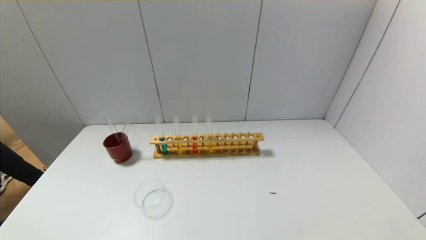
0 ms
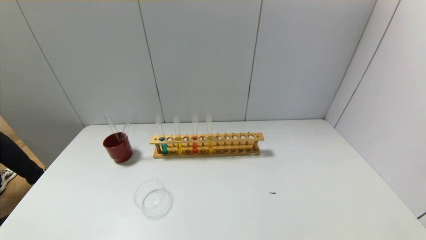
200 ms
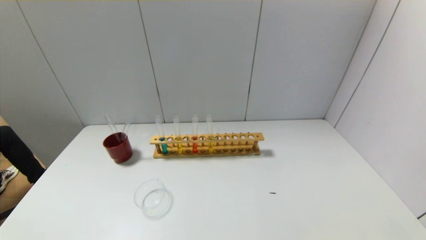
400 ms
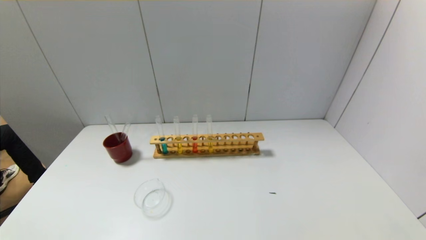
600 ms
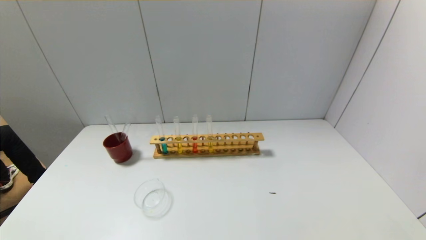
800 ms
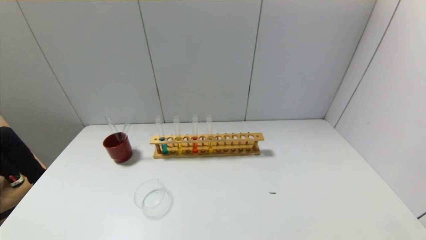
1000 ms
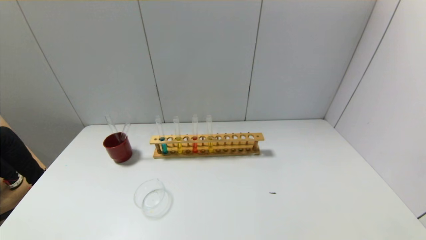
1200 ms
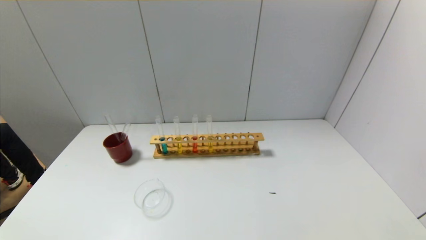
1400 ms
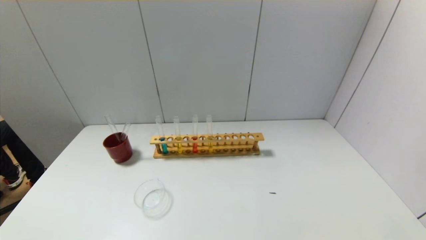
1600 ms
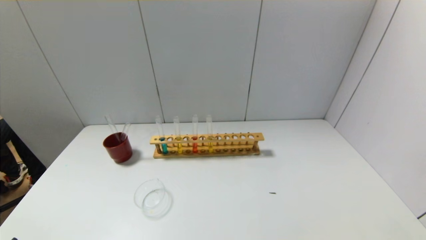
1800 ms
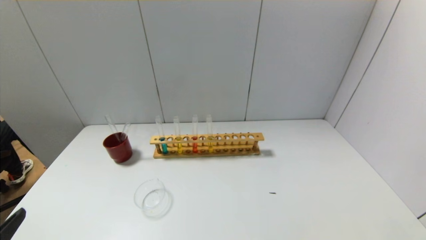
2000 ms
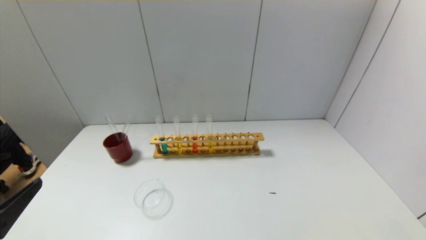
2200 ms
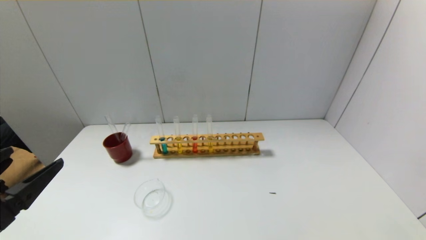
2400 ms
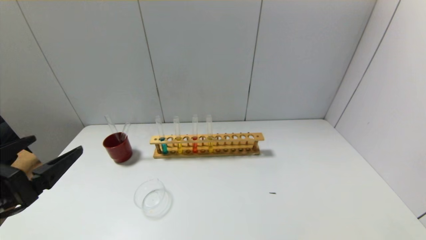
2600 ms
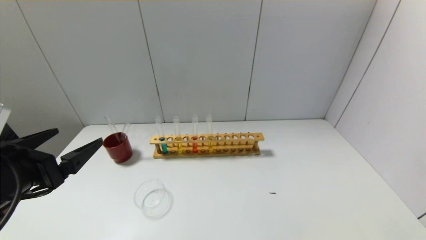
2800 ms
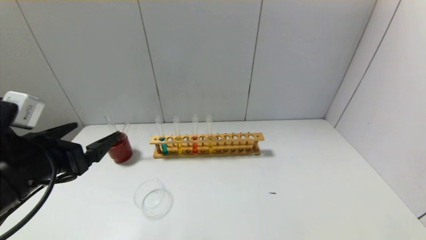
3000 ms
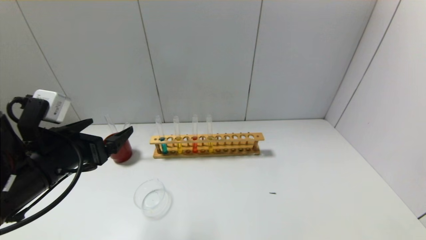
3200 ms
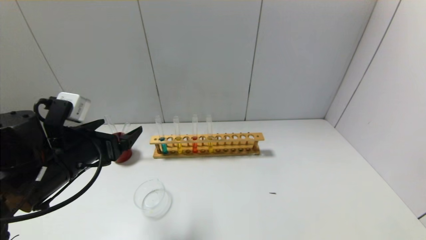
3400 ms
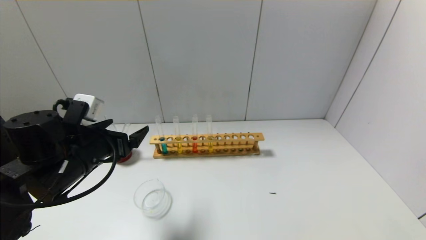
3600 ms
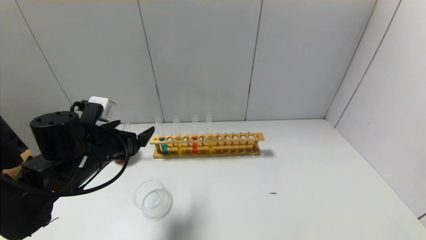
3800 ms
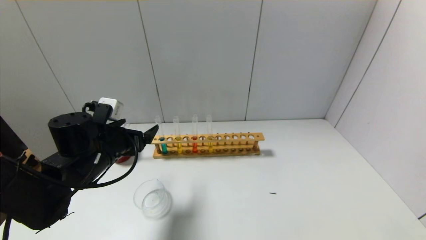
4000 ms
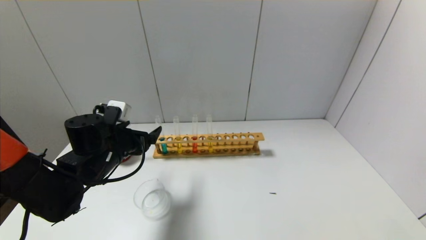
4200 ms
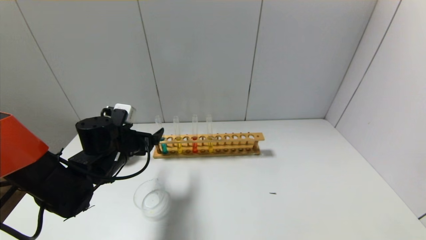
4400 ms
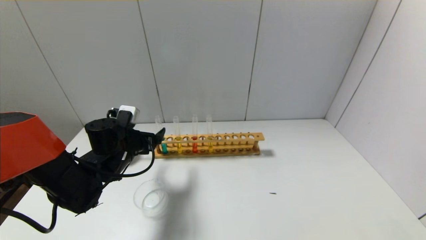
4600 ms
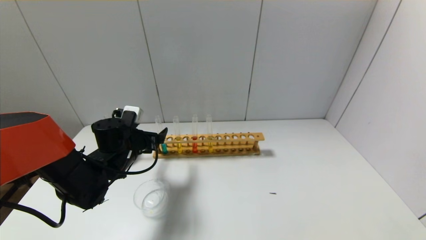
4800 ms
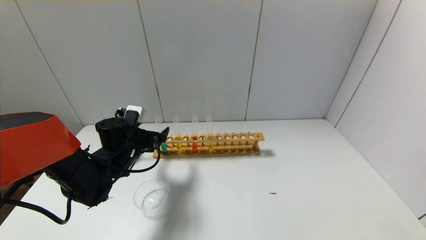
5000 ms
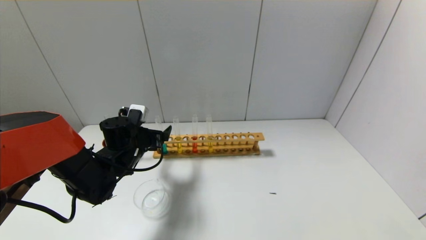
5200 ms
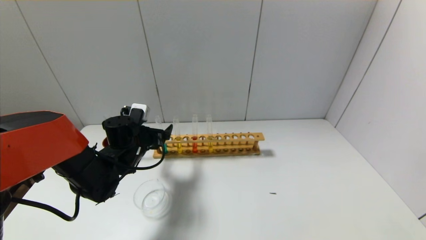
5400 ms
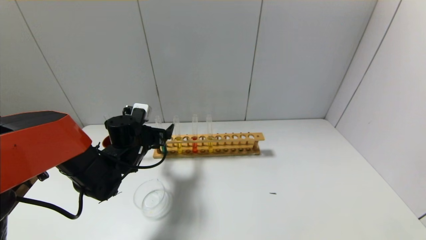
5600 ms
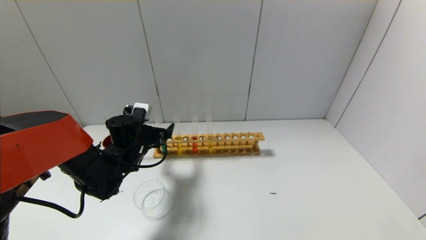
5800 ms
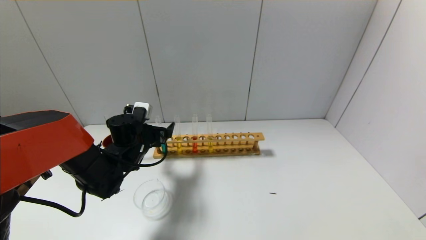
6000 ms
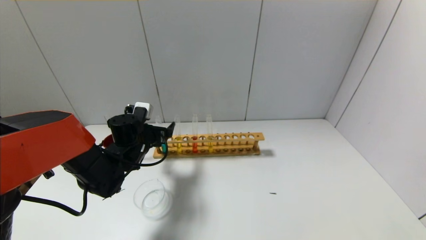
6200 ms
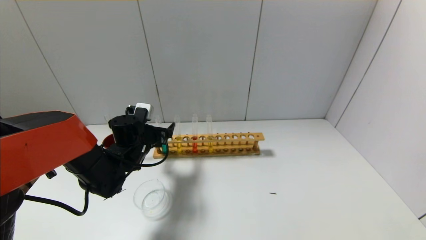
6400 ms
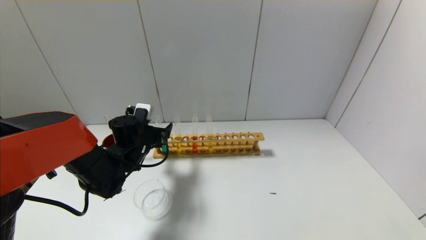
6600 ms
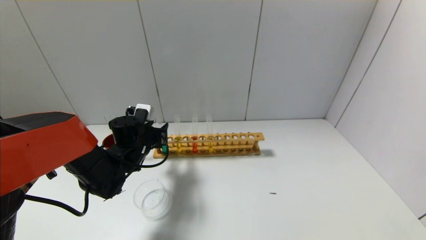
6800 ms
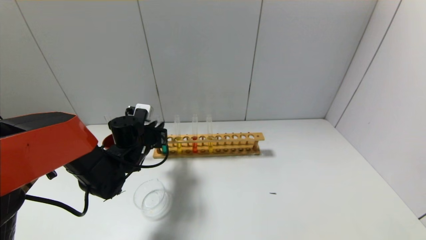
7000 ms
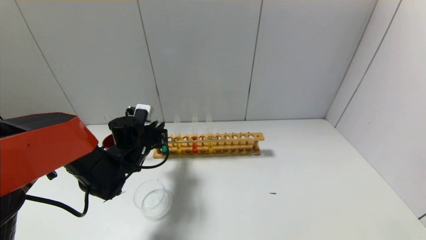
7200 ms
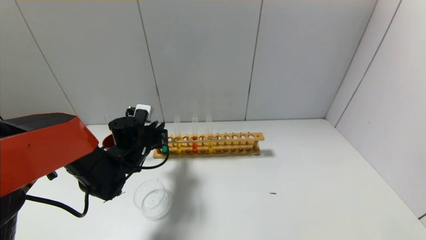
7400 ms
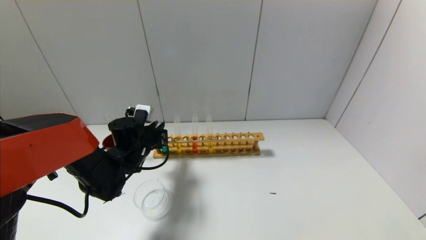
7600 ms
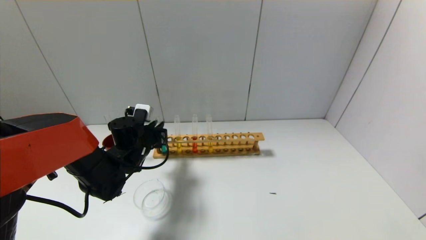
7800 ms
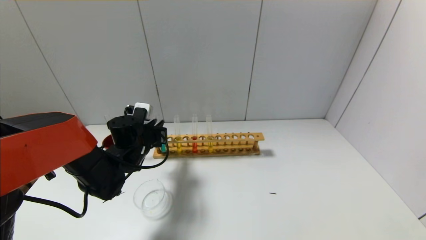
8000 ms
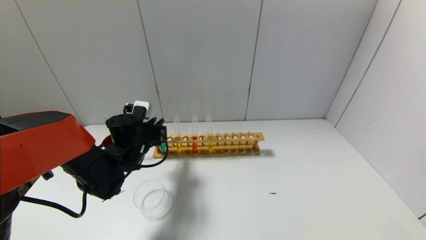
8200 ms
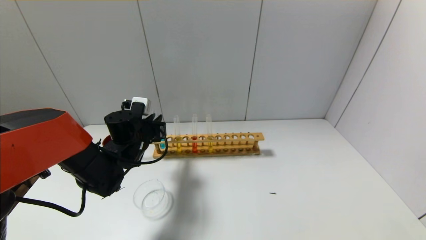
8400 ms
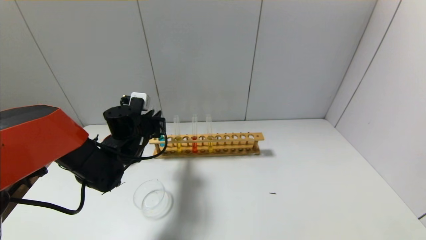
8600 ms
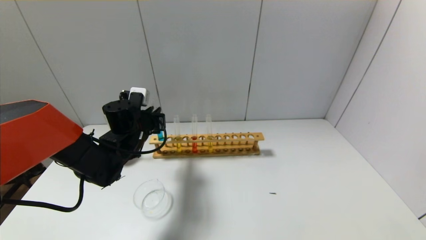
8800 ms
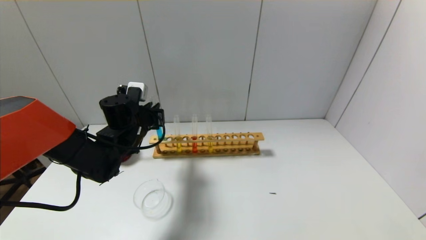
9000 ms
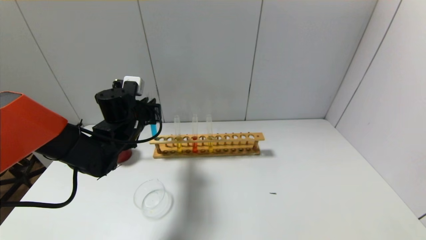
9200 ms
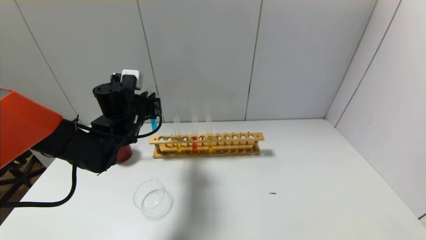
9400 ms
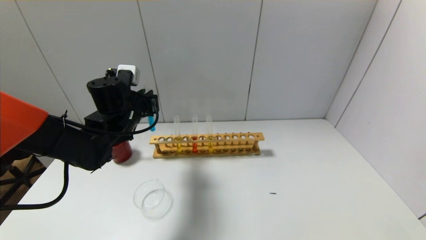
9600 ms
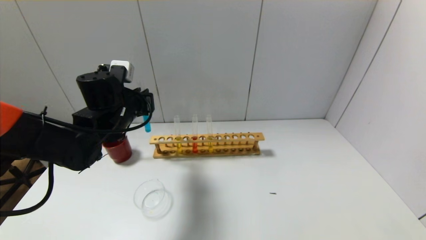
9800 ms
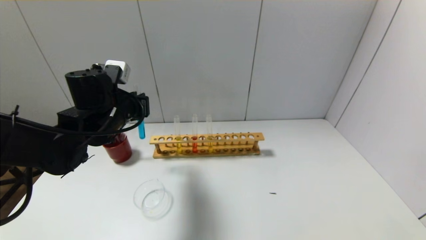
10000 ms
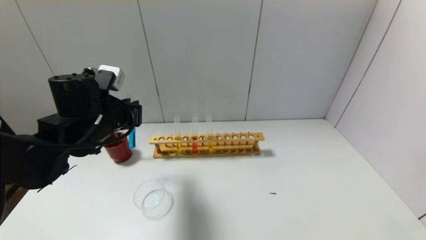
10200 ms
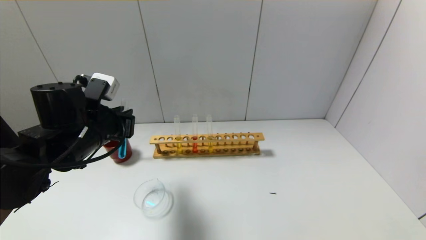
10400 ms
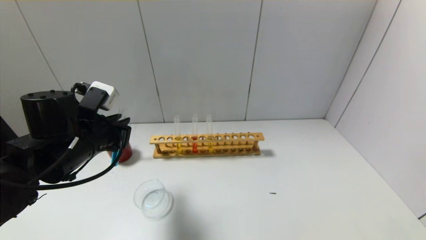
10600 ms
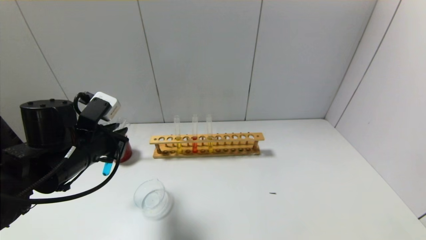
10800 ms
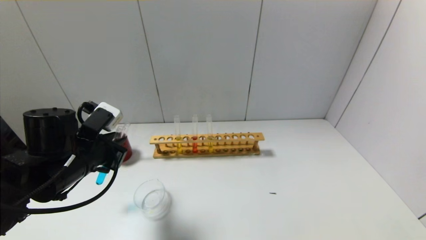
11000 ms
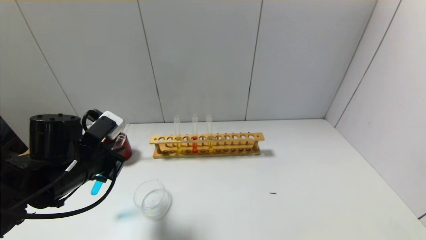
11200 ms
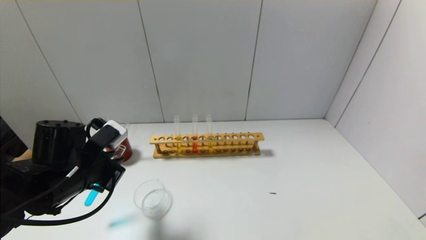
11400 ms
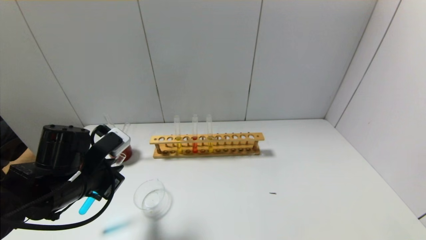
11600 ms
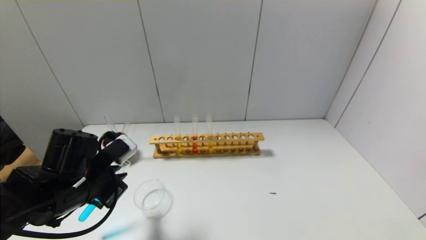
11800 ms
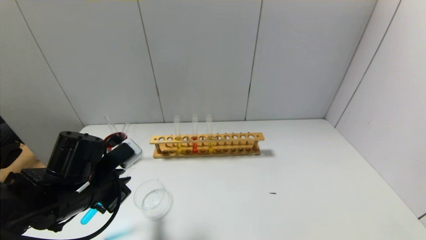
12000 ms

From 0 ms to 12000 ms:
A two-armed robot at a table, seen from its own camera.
Step, from 0 ms to 7000 ms: Grasp the blue reagent with the left gripper.
From 0 ms to 1600 ms: The left gripper moves upward, about 5 cm.
From 1600 ms to 3000 ms: The left gripper travels forward by some 20 cm.
From 3000 ms to 4400 ms: The left gripper travels forward and downward by approximately 15 cm.
From 4400 ms to 6000 ms: The left gripper moves some 5 cm.
From 6000 ms to 7600 ms: The left gripper closes up.
From 7600 ms to 9000 ms: The left gripper shifts roughly 5 cm upward.
From 9000 ms to 10400 ms: The left gripper travels backward by about 10 cm.
From 10400 ms to 12000 ms: The left gripper heads downward and backward, covering some 10 cm.

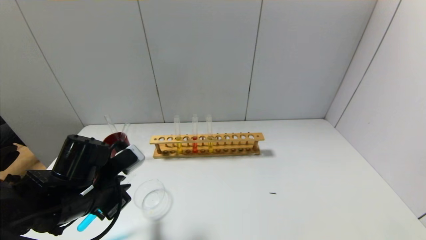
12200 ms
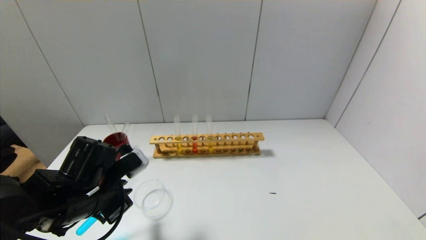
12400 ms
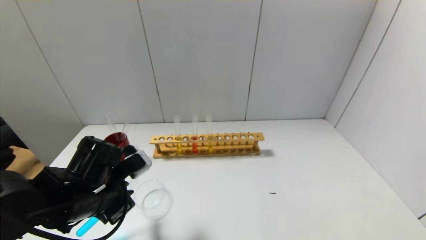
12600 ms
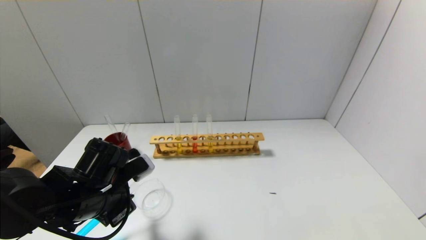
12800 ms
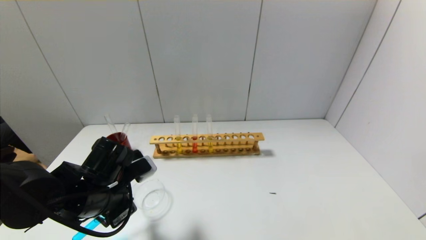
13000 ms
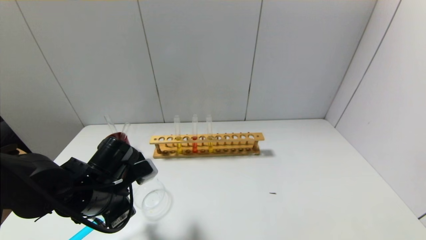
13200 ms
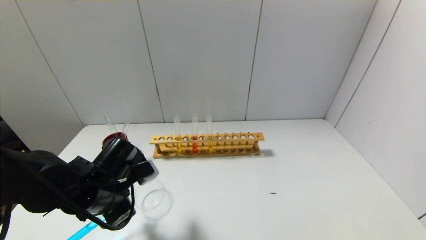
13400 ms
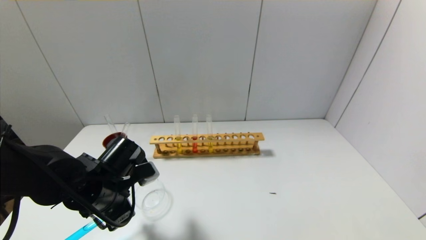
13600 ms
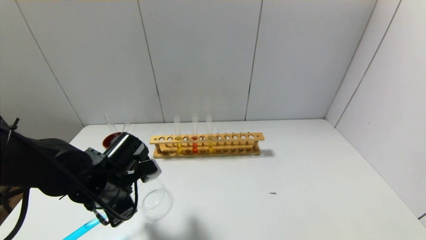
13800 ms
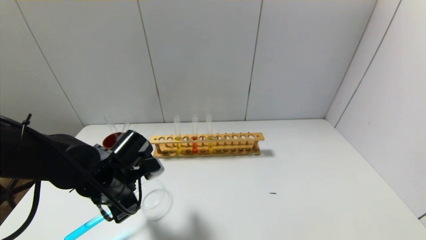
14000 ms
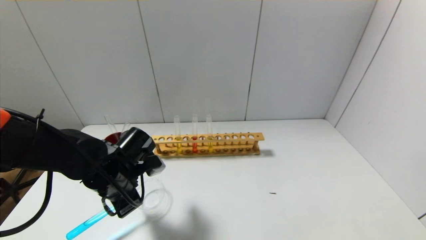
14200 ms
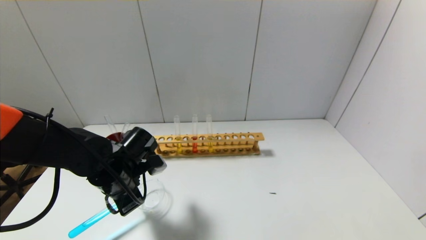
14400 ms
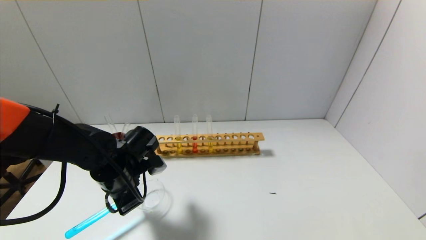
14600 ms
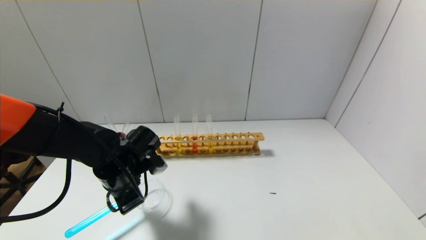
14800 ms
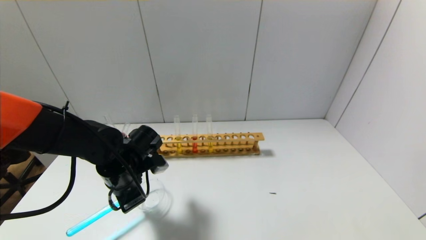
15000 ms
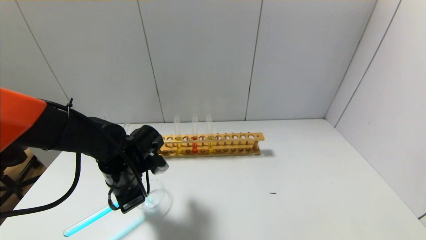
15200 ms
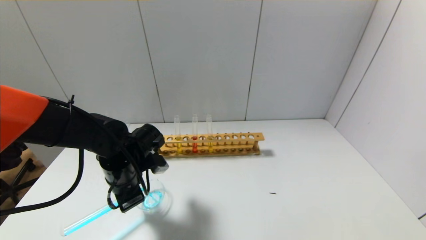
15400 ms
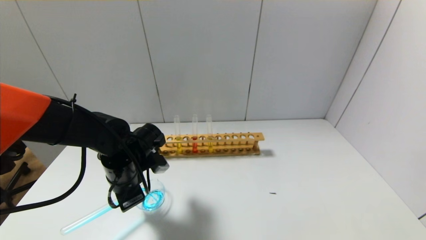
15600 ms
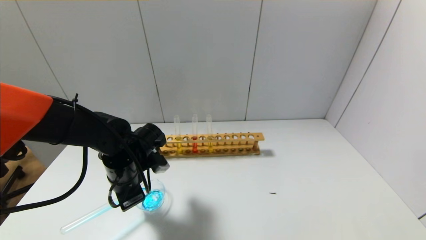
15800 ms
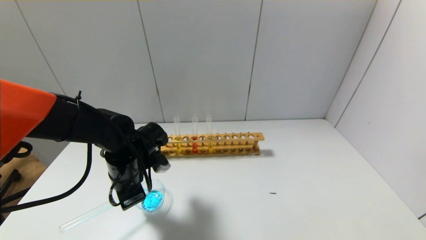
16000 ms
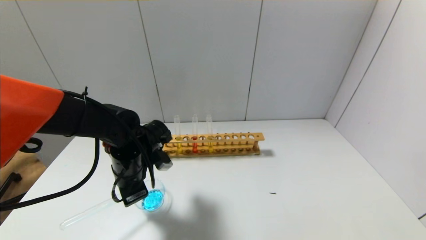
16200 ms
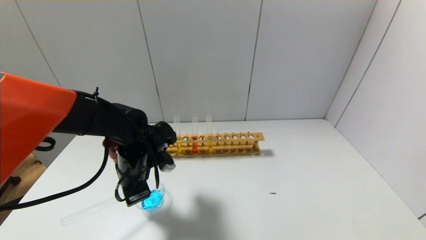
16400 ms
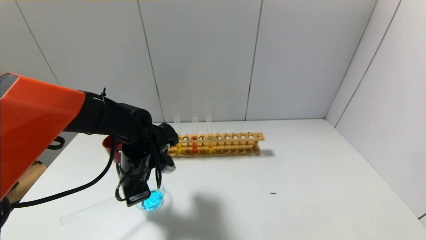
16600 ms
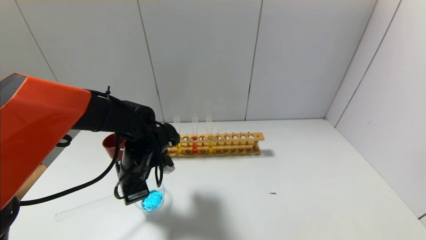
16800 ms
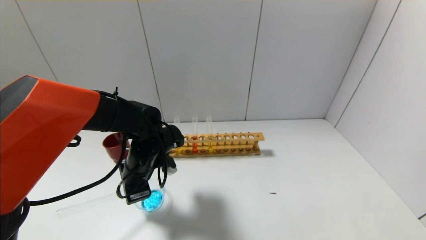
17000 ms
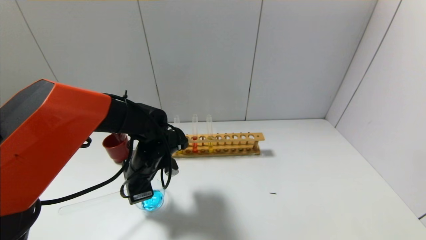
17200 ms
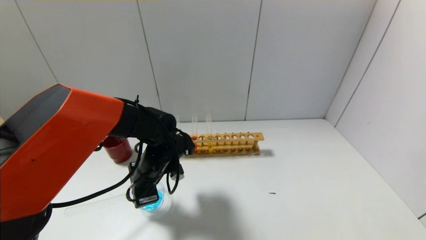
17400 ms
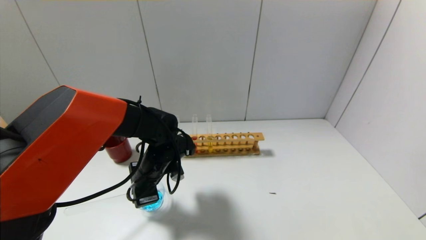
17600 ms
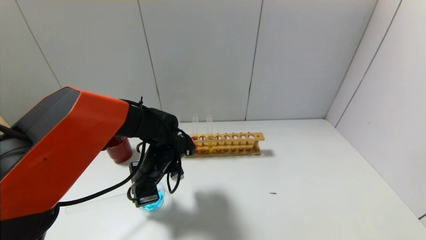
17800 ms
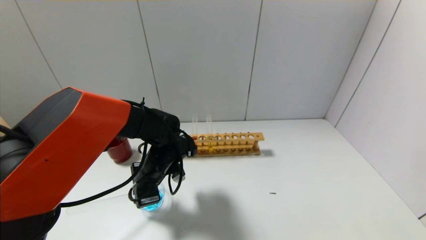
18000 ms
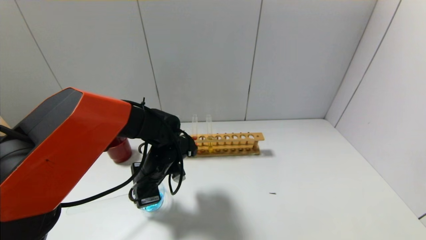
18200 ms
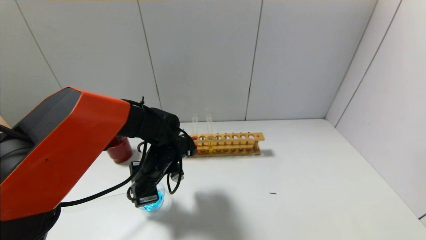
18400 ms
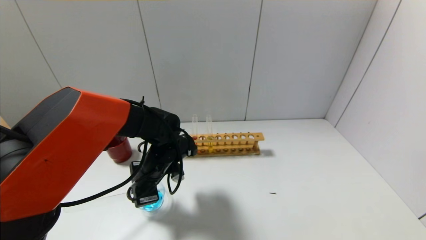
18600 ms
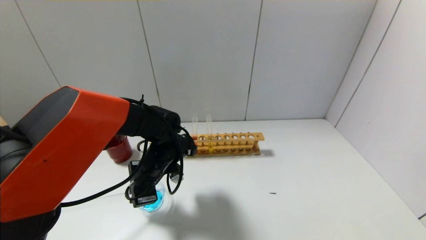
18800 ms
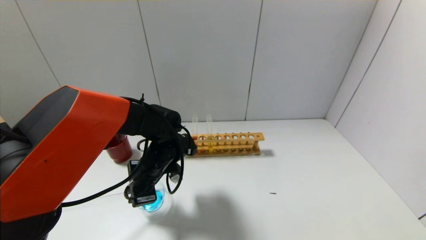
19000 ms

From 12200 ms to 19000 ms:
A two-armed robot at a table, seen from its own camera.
From 13600 ms to 15000 ms: The left gripper shifts by roughly 5 cm.
From 15000 ms to 16200 ms: There are only small adjustments of the grippers.
From 16200 ms to 17600 ms: The left gripper changes place by approximately 5 cm.
From 17600 ms to 19000 ms: Both grippers stay put.
